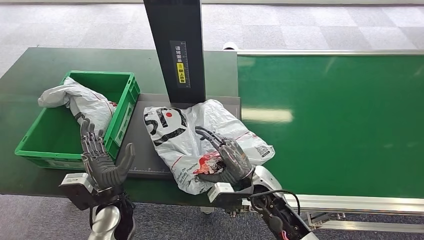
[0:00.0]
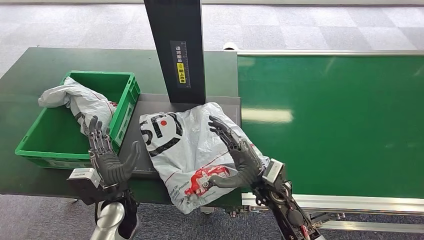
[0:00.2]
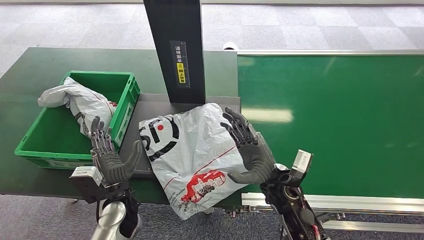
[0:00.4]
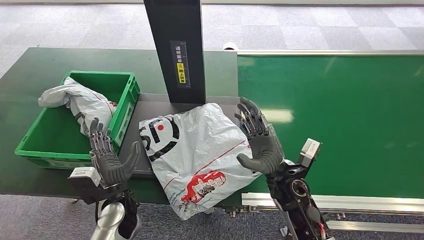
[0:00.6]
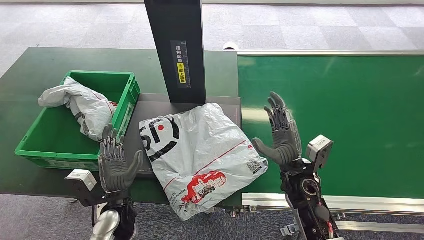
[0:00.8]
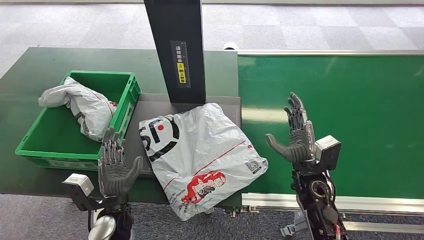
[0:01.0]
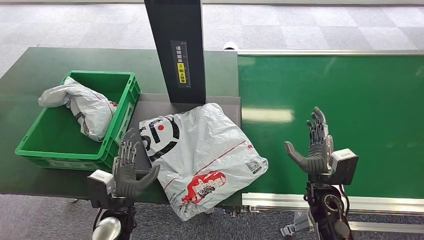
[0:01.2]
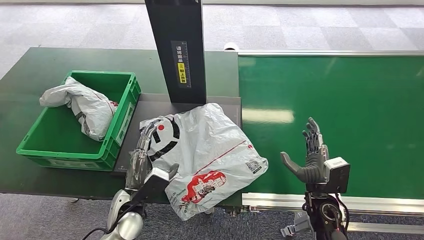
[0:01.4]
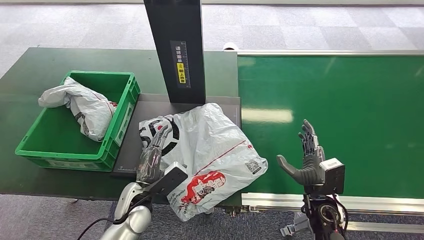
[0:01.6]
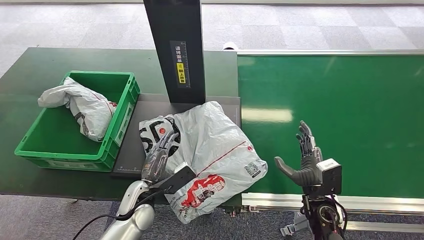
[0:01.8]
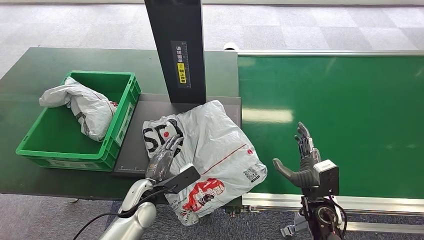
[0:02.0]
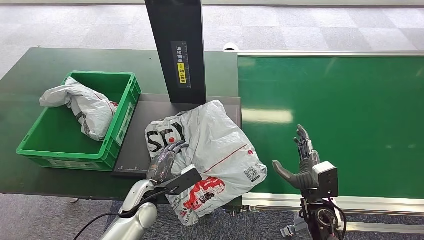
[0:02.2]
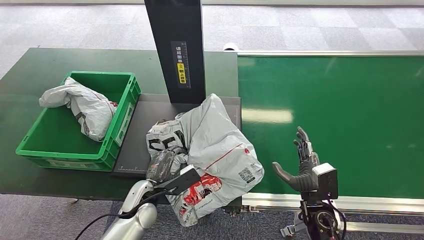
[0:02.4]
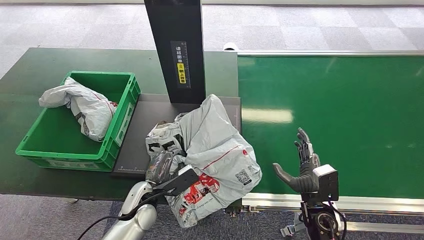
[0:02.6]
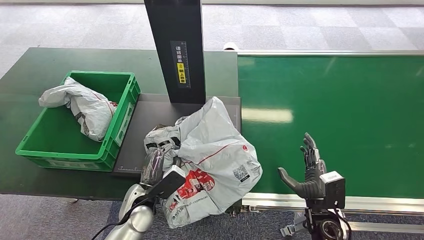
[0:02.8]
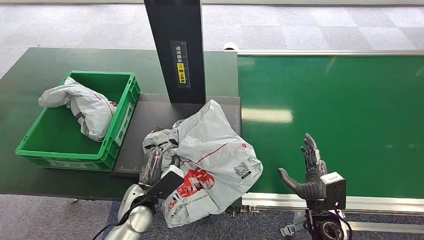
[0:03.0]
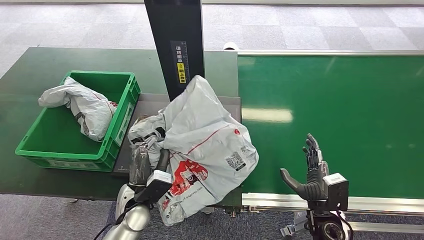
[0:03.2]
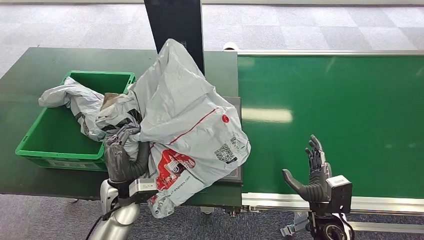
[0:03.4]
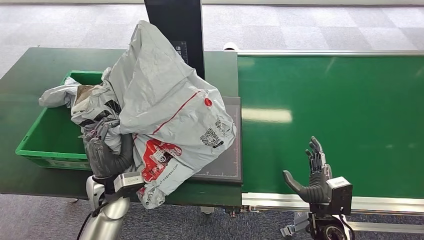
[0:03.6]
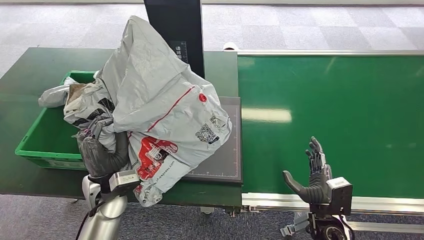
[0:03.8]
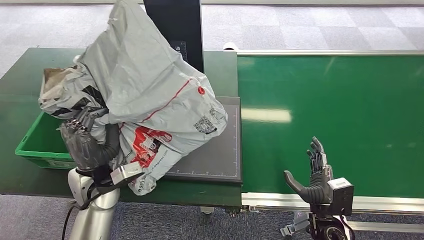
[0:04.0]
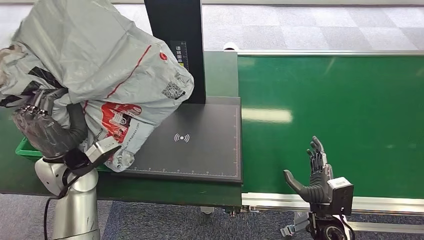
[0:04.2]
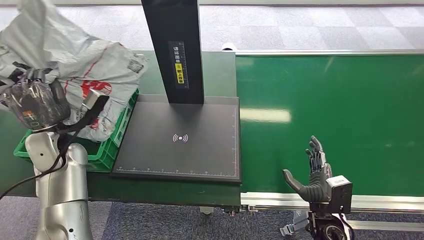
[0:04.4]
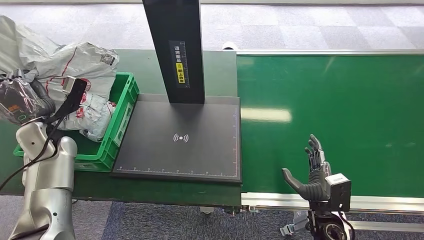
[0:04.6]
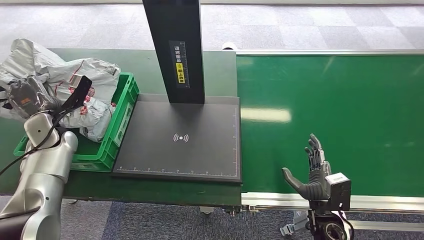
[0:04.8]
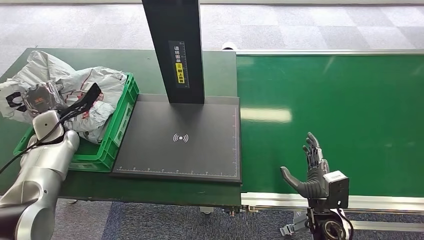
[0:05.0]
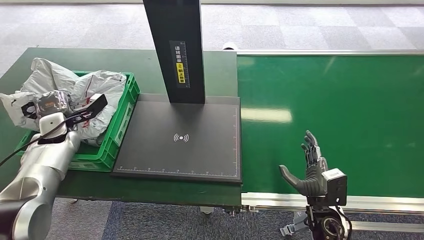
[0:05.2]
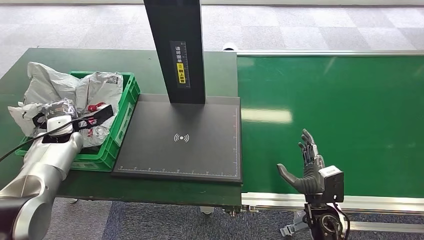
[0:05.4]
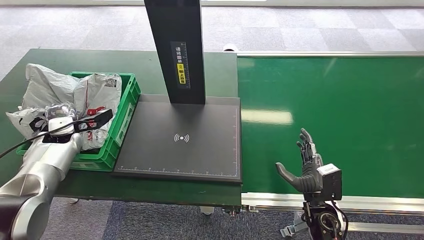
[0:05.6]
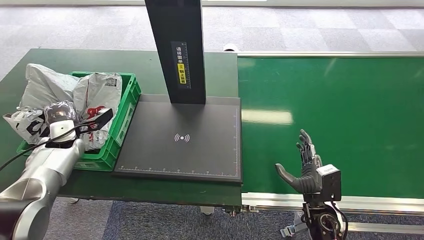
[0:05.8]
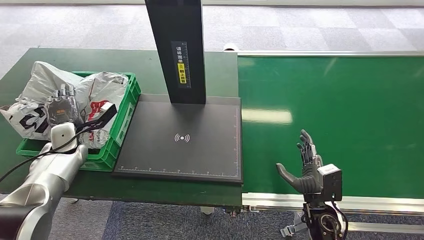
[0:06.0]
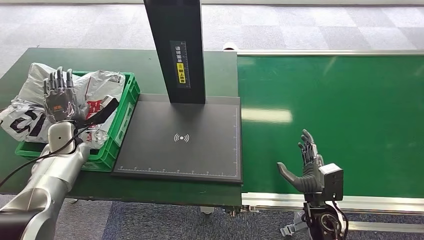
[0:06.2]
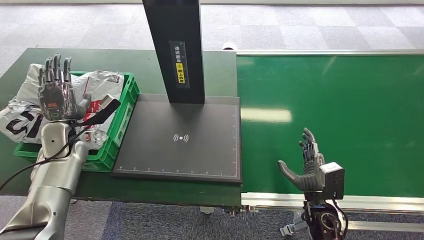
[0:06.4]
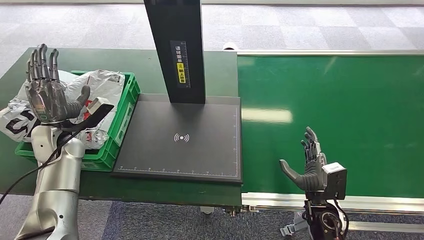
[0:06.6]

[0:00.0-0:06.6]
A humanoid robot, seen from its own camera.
Task of the whole recording: Weigh the package on the weighing device and place it in the left basket.
Step, 0:00.4 to 0:03.4: Pick up the package from the inbound machine.
Step, 0:03.6 to 0:06.6: Place the package into the parcel locker.
0:00.0 to 0:01.6: The right hand goes roughly 15 cm to the right.
0:05.0 to 0:06.6: The left hand moves about 5 cm.

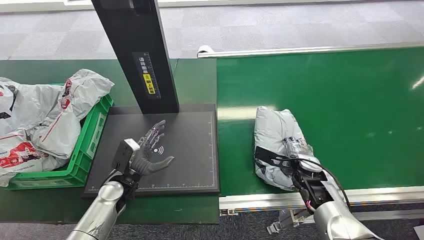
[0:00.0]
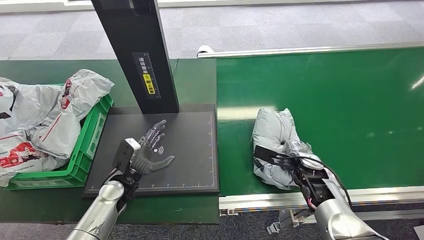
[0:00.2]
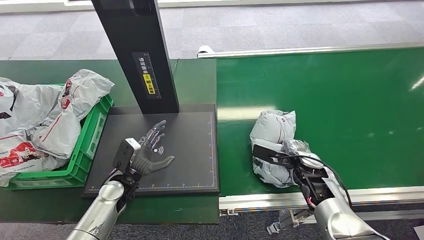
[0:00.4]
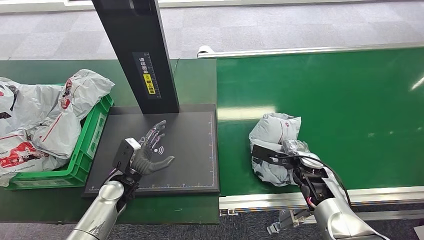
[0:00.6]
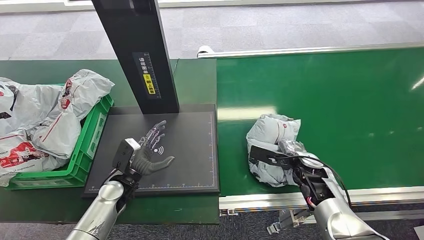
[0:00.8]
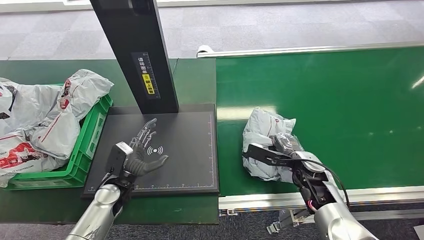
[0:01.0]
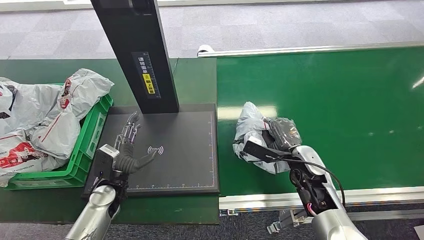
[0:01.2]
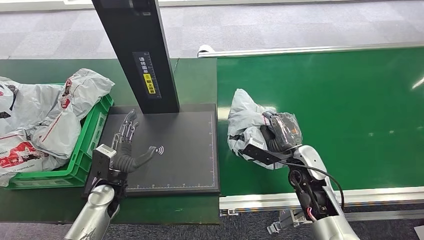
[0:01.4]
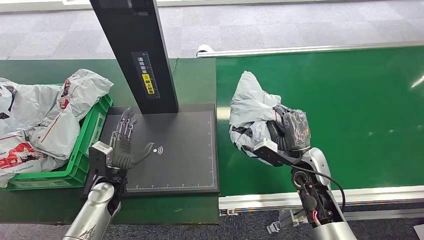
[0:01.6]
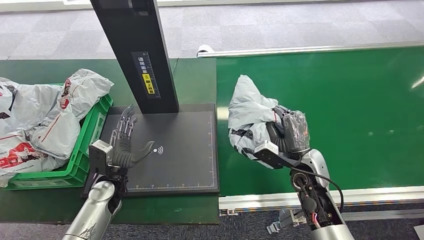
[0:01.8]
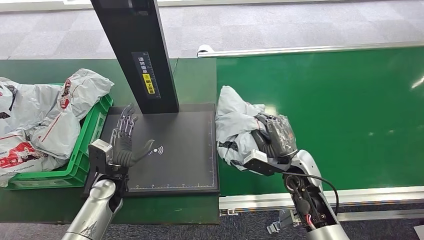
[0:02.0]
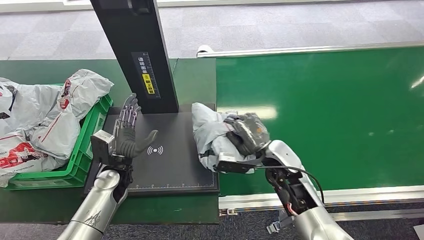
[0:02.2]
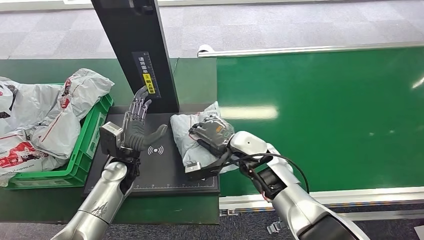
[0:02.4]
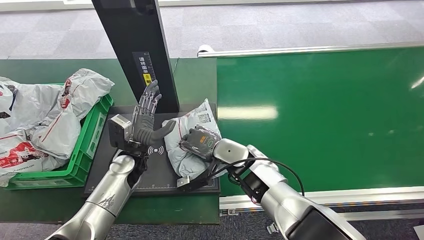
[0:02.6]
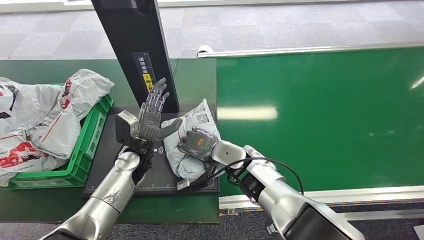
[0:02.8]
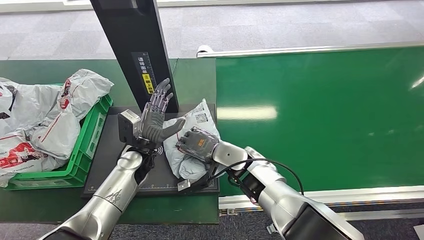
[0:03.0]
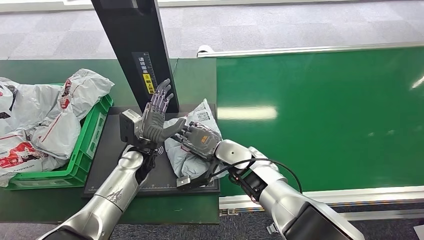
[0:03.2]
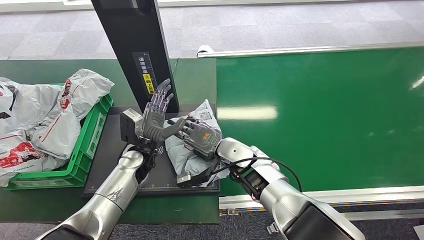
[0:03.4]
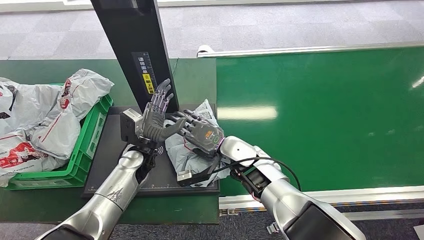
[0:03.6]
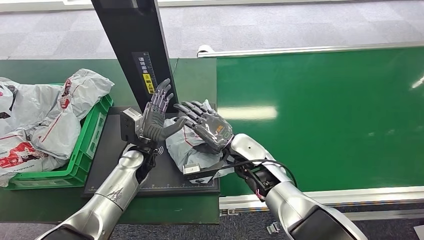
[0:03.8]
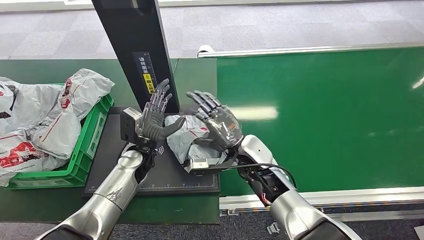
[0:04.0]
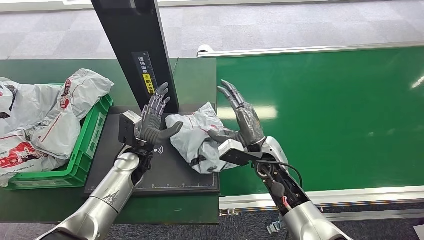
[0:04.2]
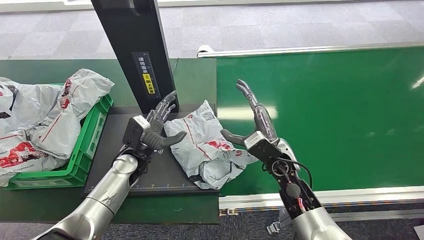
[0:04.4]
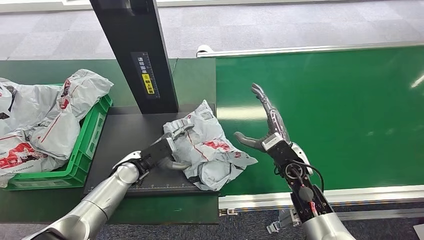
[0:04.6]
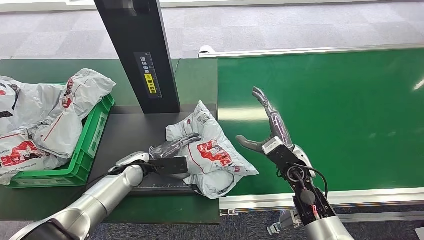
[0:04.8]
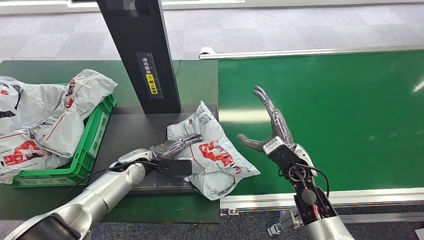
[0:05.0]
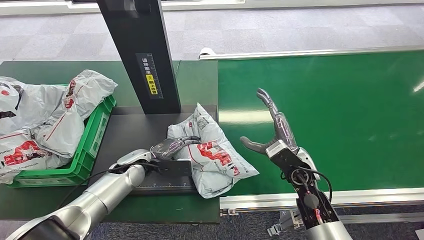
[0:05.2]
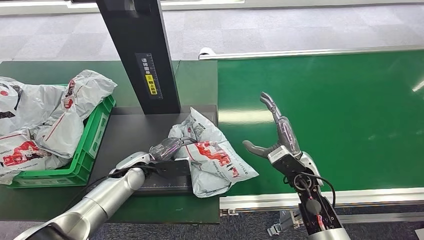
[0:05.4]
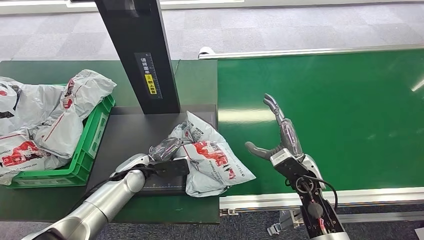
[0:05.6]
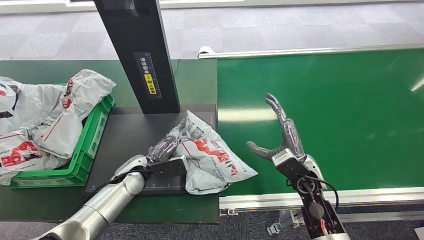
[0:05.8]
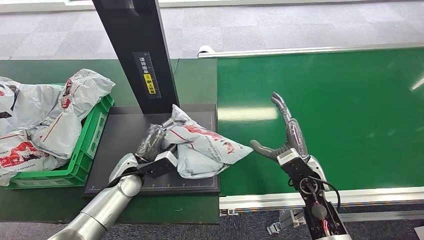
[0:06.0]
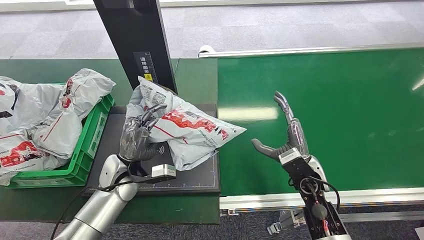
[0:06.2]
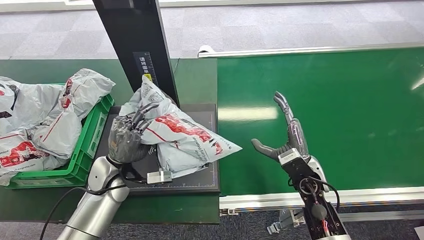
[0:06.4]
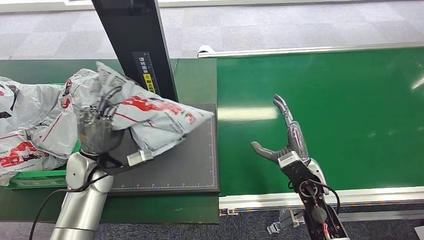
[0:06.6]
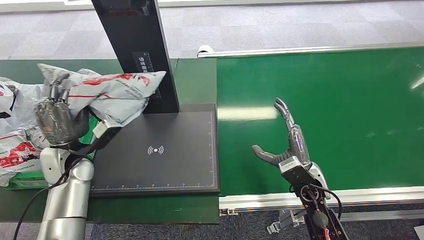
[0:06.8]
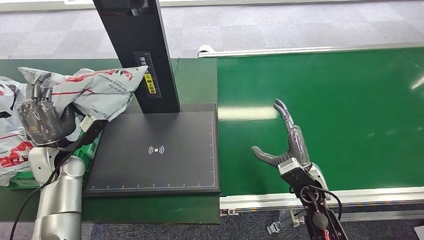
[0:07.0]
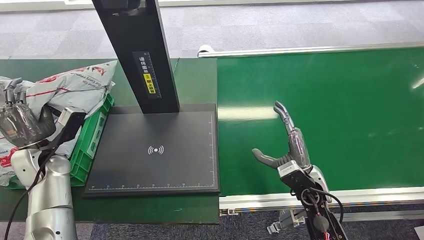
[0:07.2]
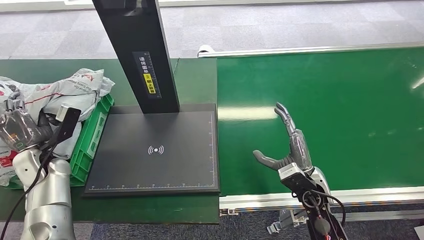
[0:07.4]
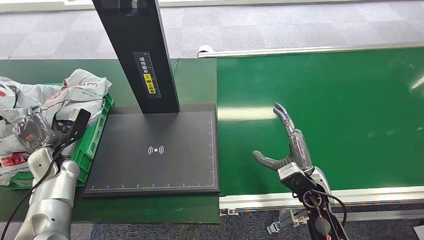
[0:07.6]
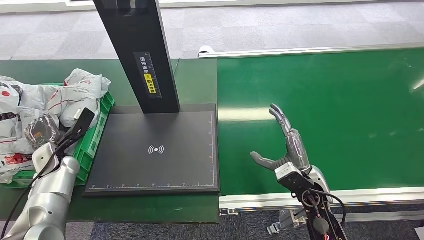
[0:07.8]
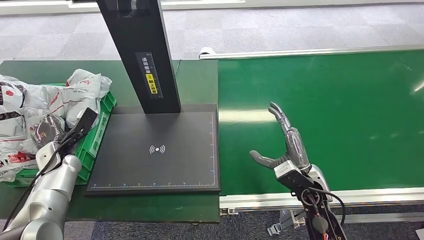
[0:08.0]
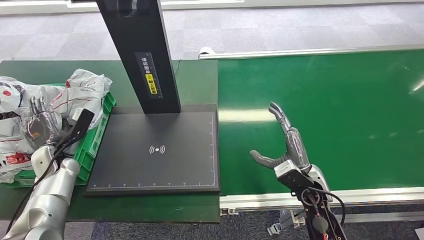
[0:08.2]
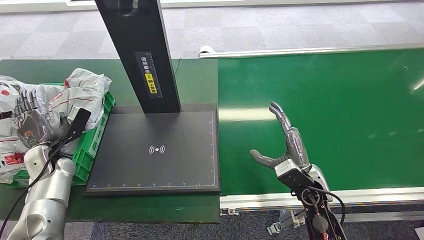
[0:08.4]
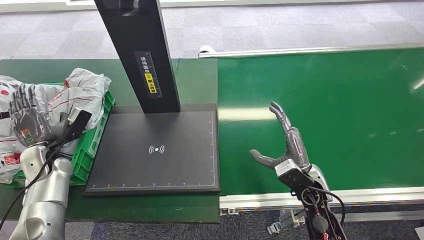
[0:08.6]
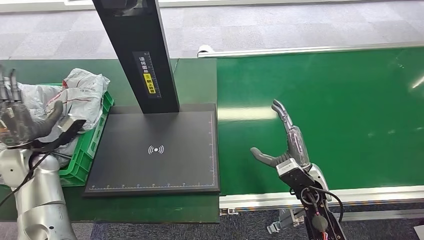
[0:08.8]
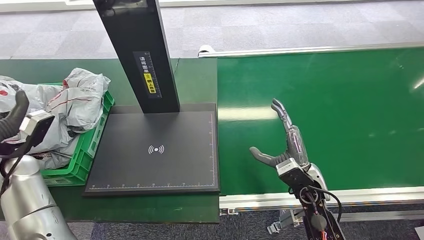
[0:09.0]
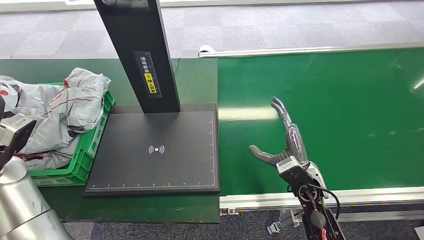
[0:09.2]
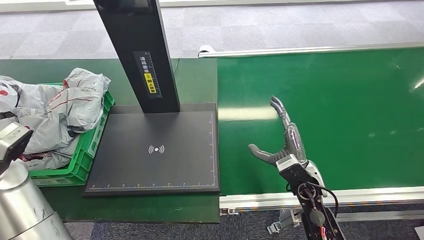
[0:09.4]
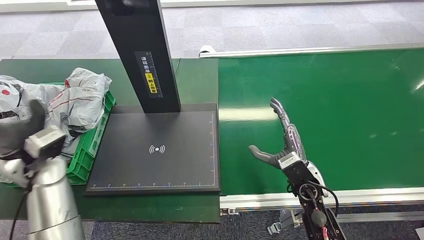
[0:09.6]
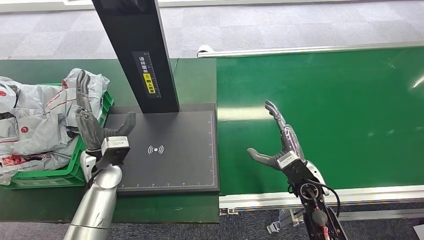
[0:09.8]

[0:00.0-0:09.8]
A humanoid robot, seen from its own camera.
Task of the whole recording: Weigh the package on the weighing device and place it in the left basket.
Step, 0:00.0 to 0:01.8: Pick up the package from the conveyor belt.
Step, 0:02.0 to 0:04.6: Place the package onto the inbound machine.
Step, 0:04.8 to 0:06.8: Pick up the package from the inbound machine.
Step, 0:07.2 to 0:09.8: Place the package into the parcel locker.
0:01.4 to 0:02.8: The right hand is displaced to the left by some 20 cm; the left hand travels to the right, forward and upward by some 10 cm.
0:02.8 to 0:04.2: The right hand travels to the right by roughly 10 cm.
0:07.0 to 0:08.4: The left hand travels to the left and downward by about 10 cm.
